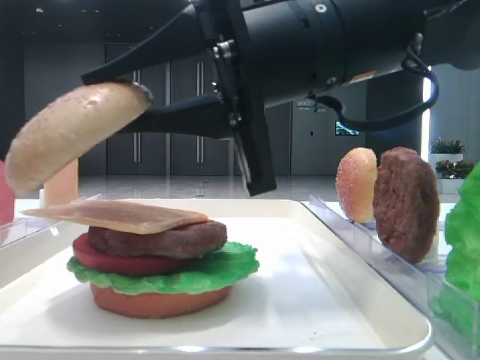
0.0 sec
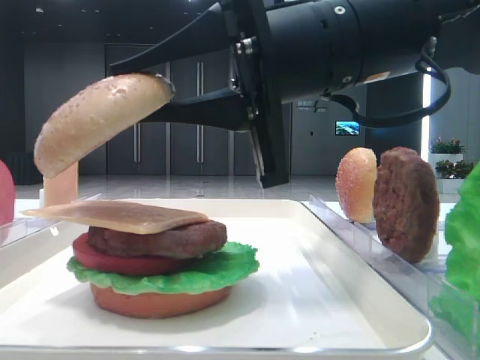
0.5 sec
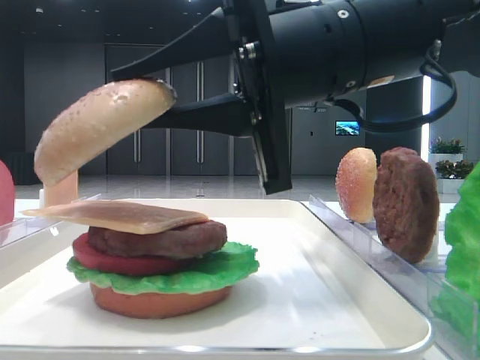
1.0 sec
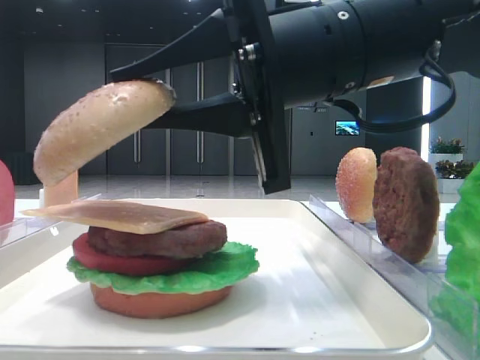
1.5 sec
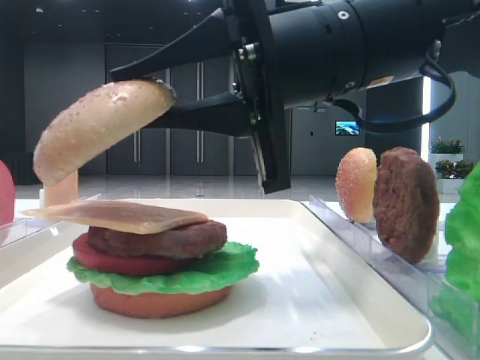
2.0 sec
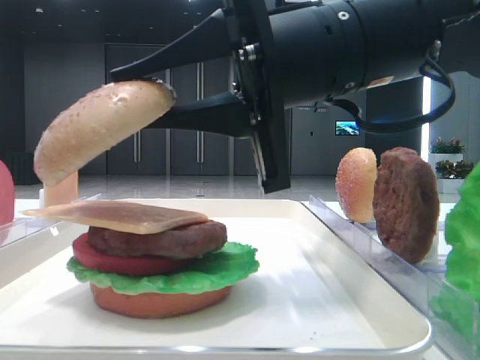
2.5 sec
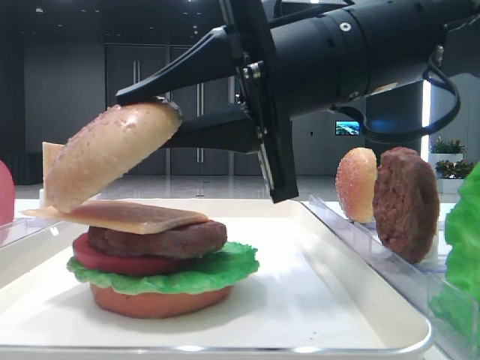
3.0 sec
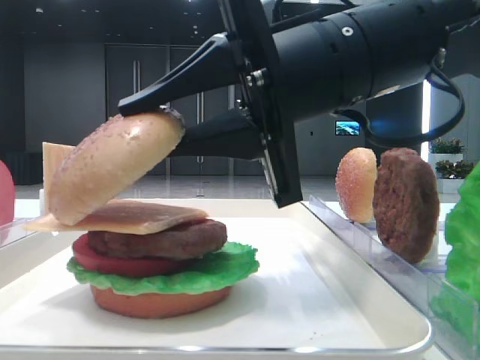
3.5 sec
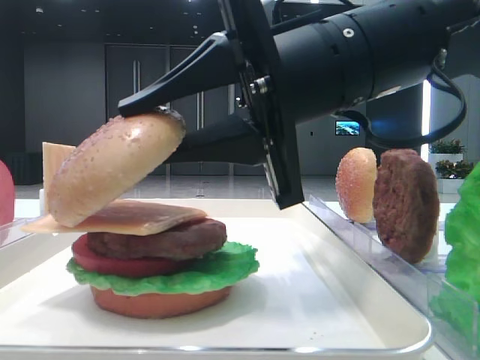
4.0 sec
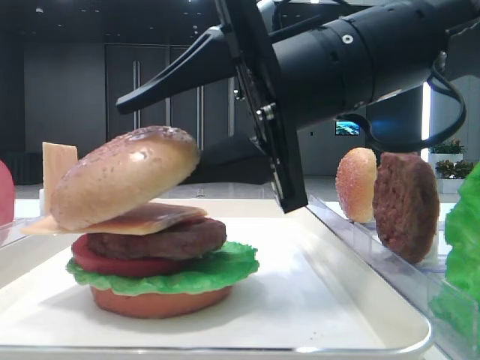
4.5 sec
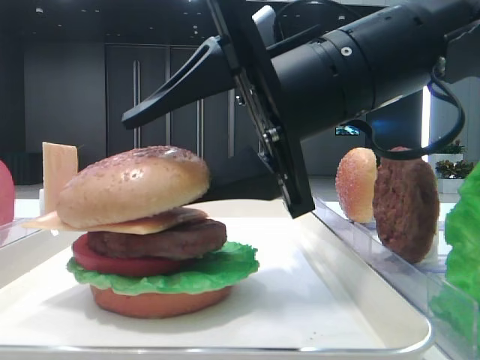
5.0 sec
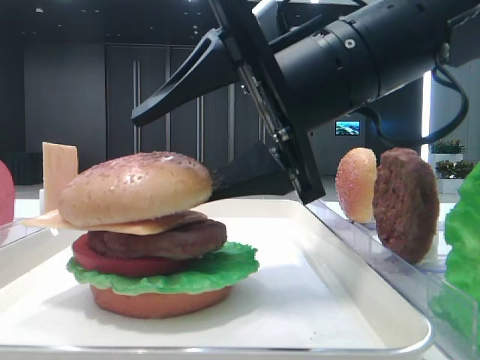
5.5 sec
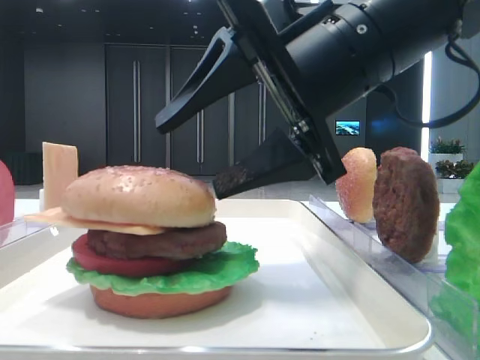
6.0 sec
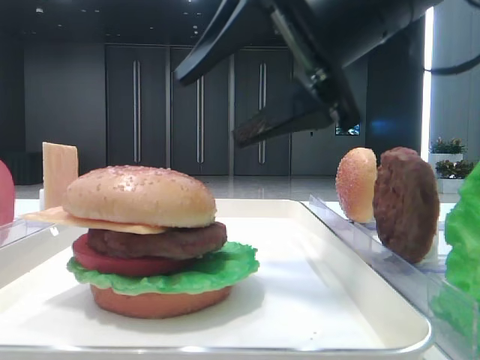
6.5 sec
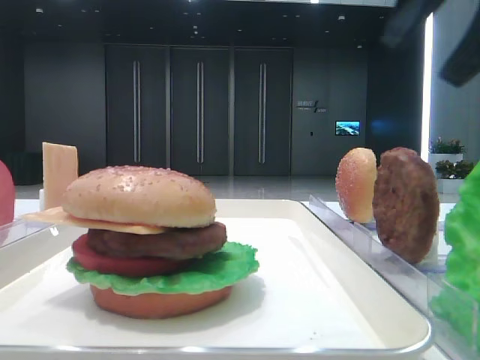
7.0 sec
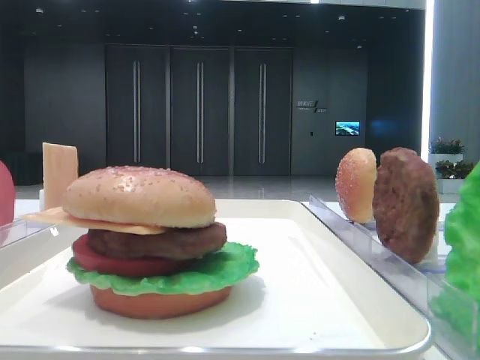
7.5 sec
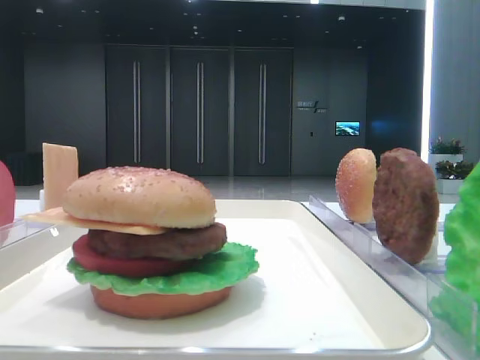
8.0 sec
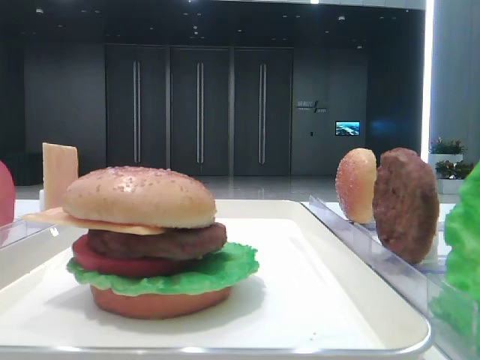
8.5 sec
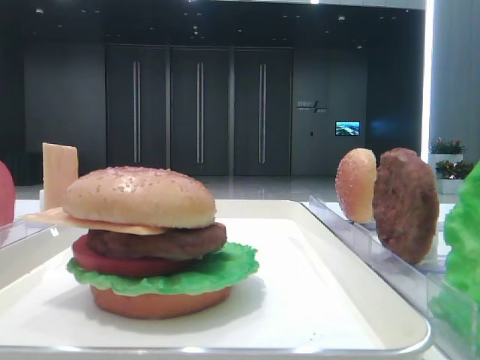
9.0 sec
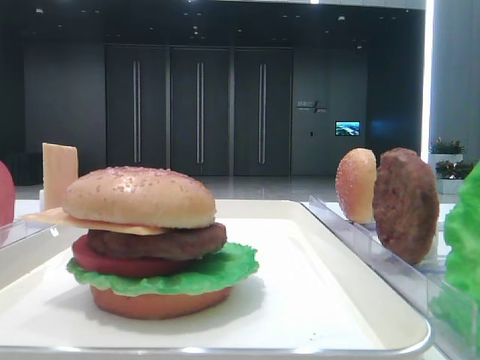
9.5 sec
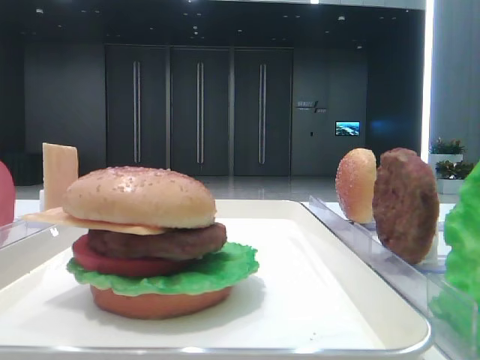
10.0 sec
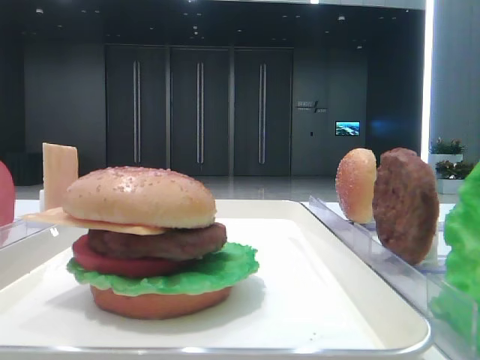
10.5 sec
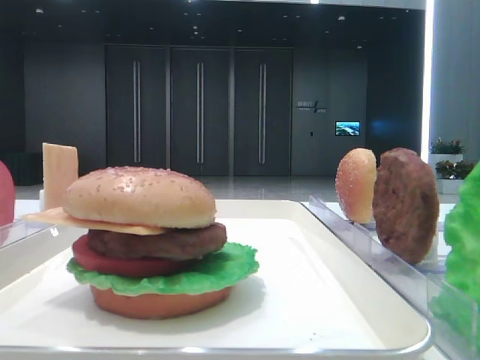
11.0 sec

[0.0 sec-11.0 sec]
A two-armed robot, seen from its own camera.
Step, 0.0 sec to 5.5 sec: Place the top bread slice on the cheese with the right hand.
0.0 sec to 3.5 sec: The grippers make only small movements.
3.5 sec to 5.5 sec: The right gripper opens.
5.5 sec to 7.5 sec: The right gripper heads to the right, upward and backward, covering roughly 30 cm.

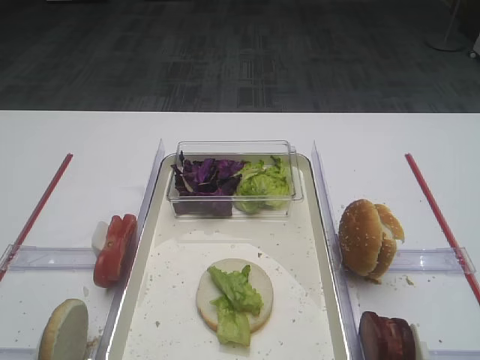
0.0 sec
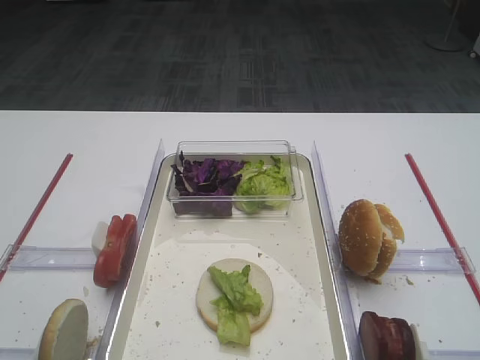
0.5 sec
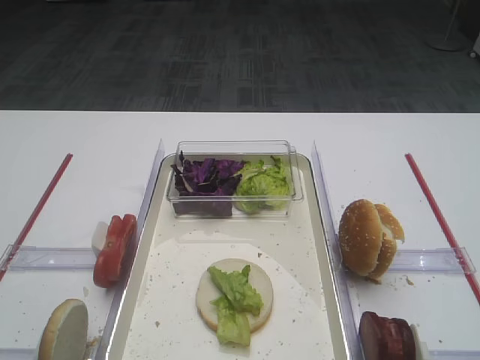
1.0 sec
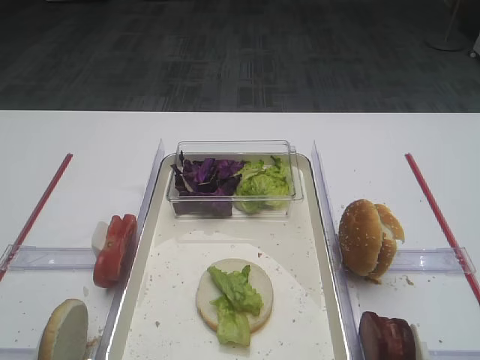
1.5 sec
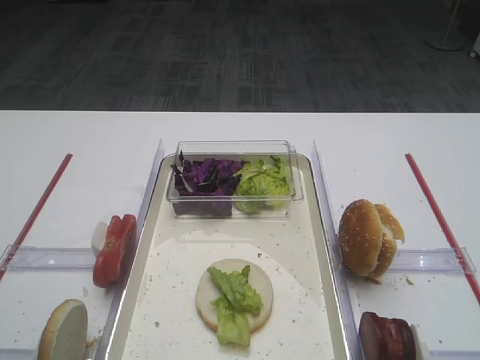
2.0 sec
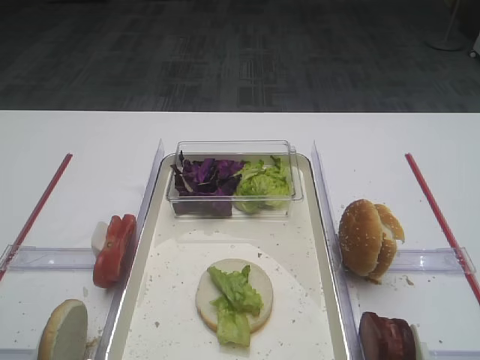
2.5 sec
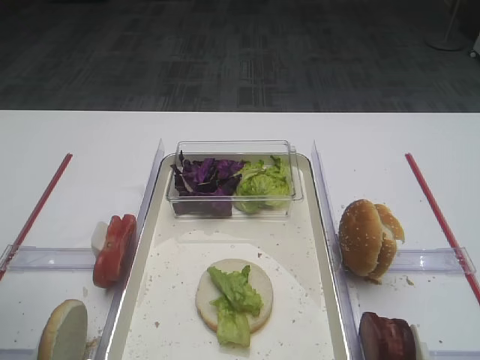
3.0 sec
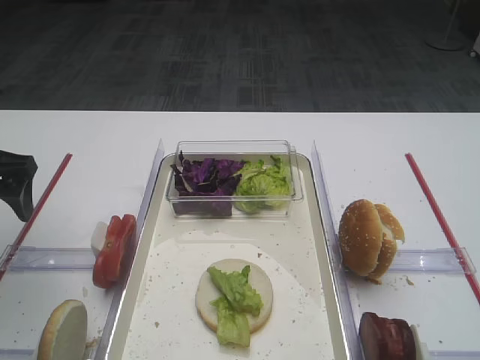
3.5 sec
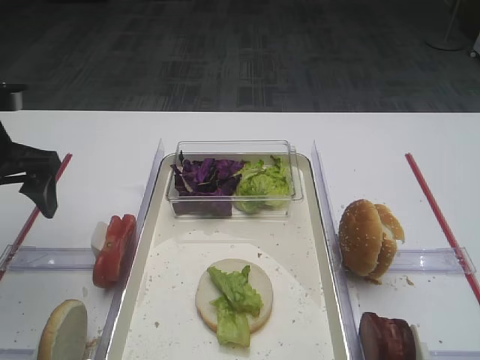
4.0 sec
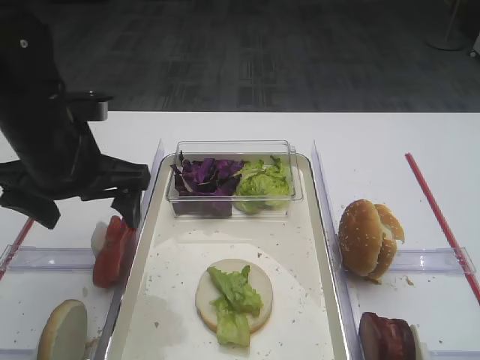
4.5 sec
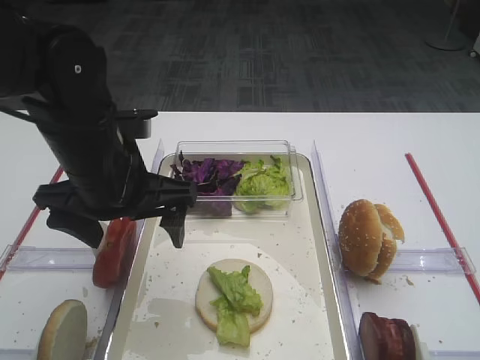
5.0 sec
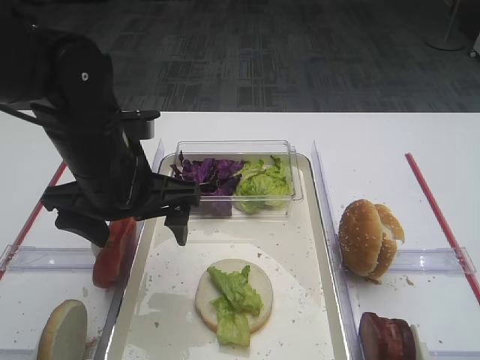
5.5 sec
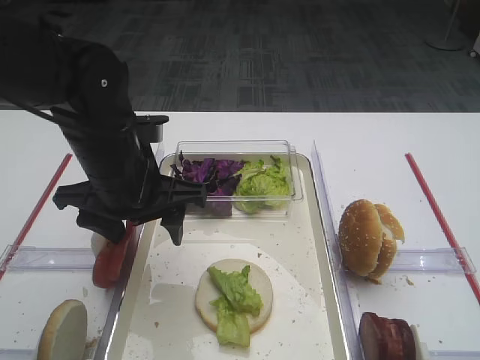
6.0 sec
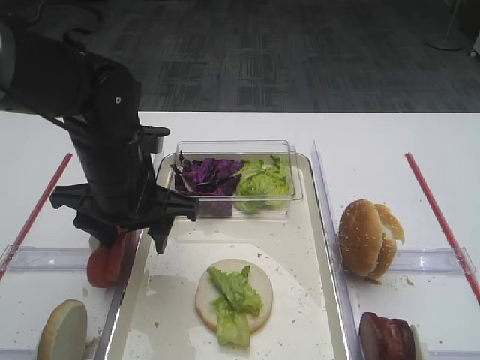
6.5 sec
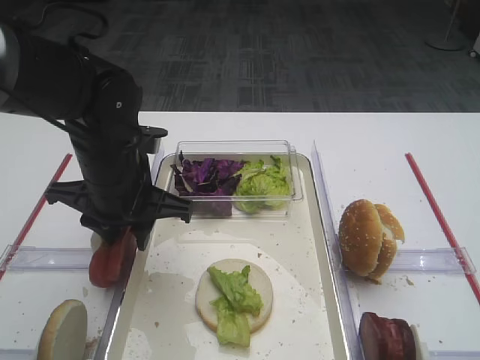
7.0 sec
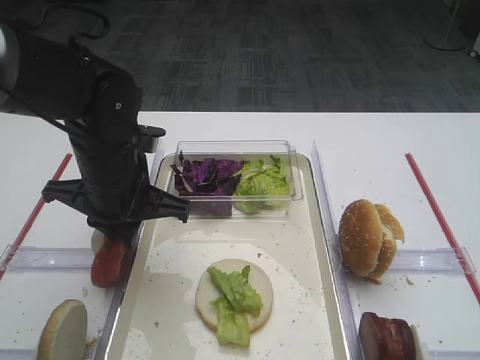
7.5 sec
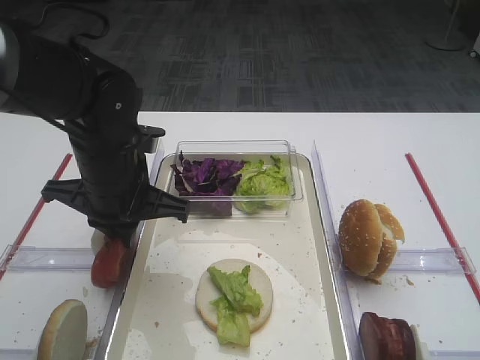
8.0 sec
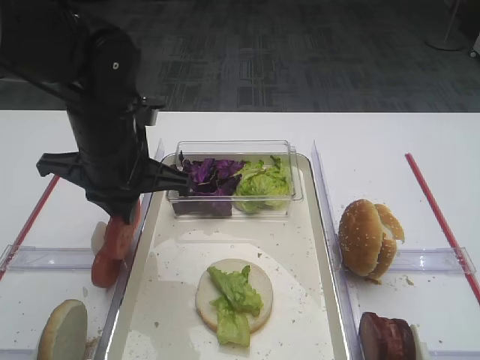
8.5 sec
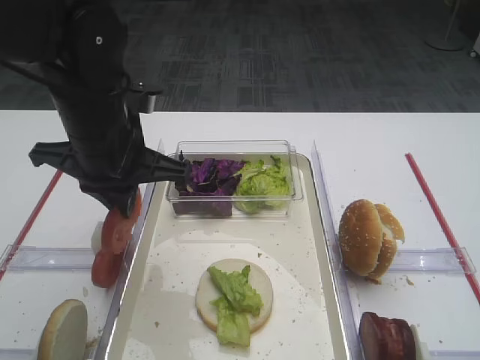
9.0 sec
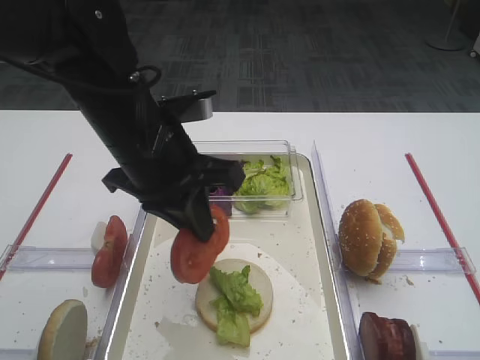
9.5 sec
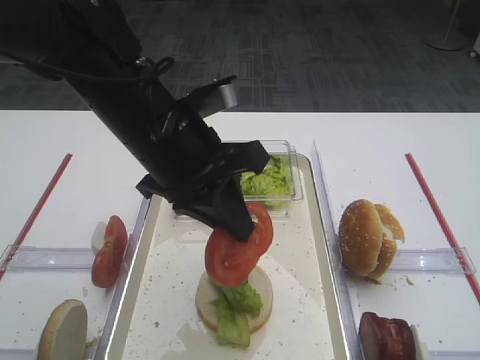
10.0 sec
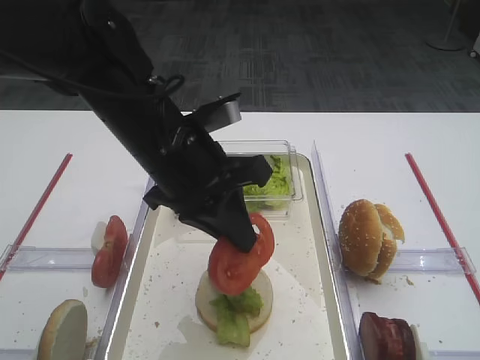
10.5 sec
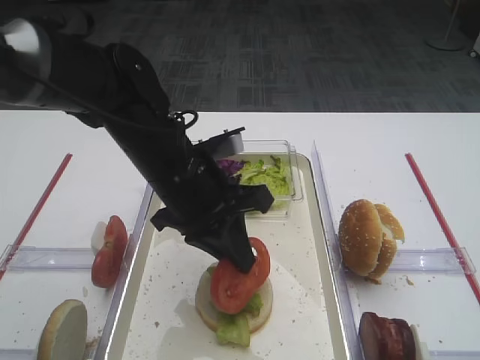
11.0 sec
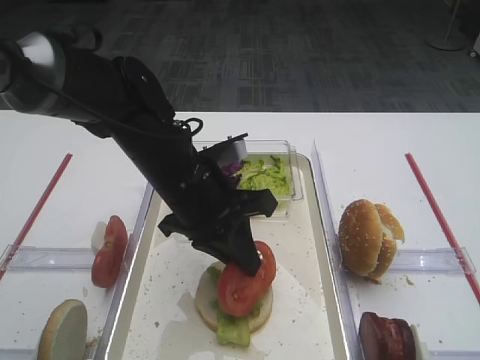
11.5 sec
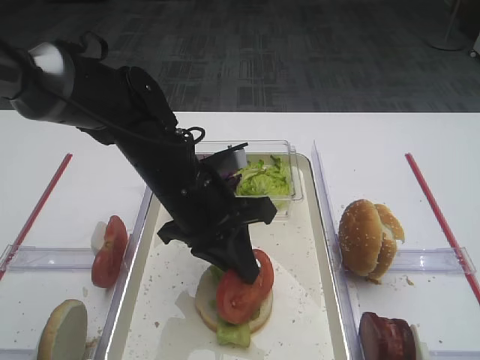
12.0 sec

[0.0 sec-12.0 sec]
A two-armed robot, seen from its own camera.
Step, 0.0 sec to 8.5 sec: Pick up the tomato slice with the left gripper.
2.0 sec to 4.0 sec: The left gripper heads forward, covering about 20 cm.
4.0 sec to 6.0 sec: The right gripper closes, while the left gripper heads to the right, covering approximately 15 cm.
6.0 sec to 8.0 sec: The left gripper closes.
8.0 sec to 10.0 sec: The left gripper heads upward and to the right, covering approximately 10 cm.
10.0 sec to 12.0 sec: The left gripper shifts some 10 cm downward.

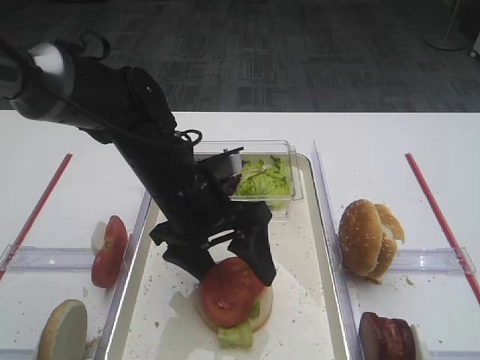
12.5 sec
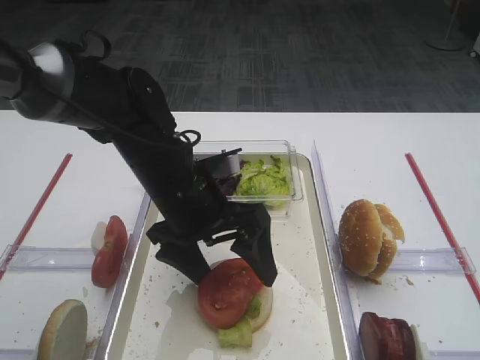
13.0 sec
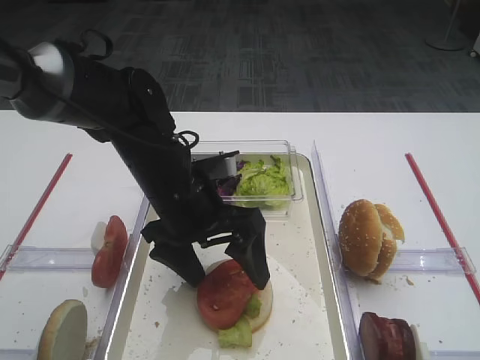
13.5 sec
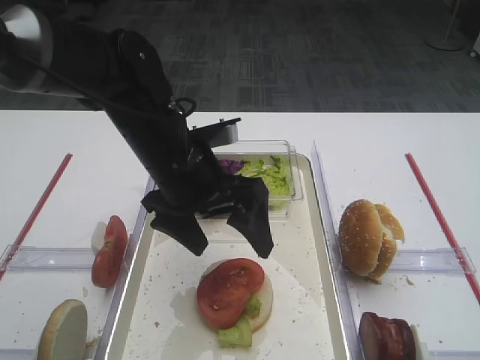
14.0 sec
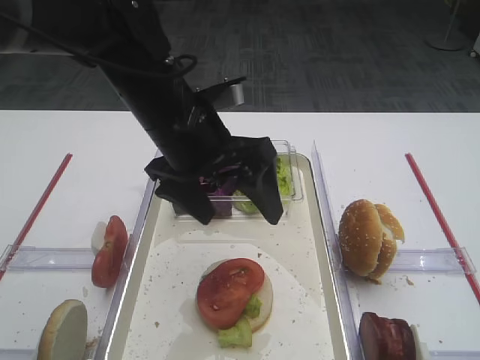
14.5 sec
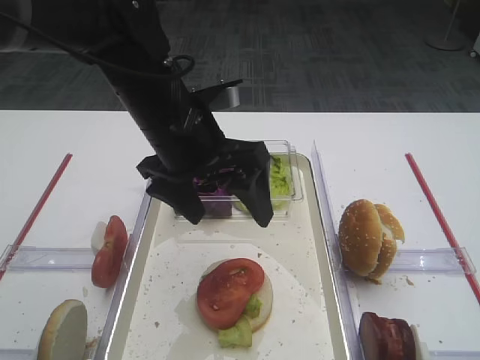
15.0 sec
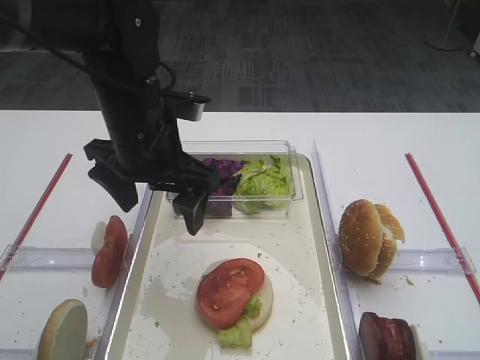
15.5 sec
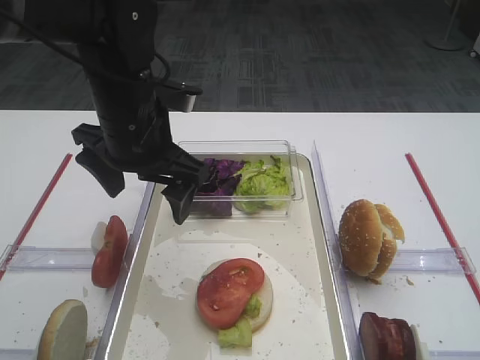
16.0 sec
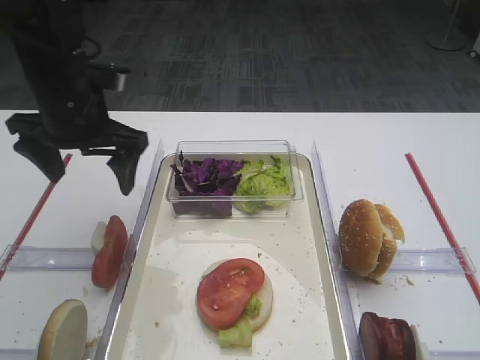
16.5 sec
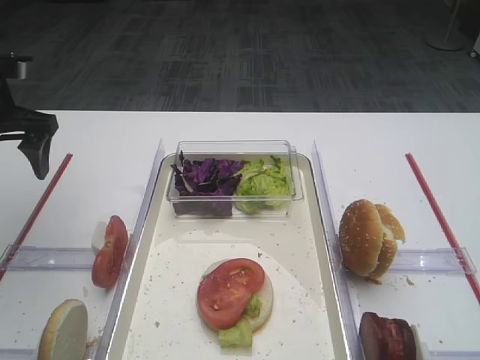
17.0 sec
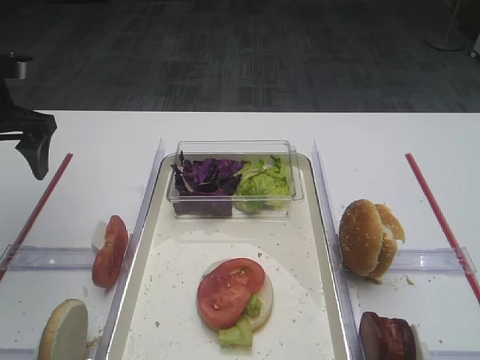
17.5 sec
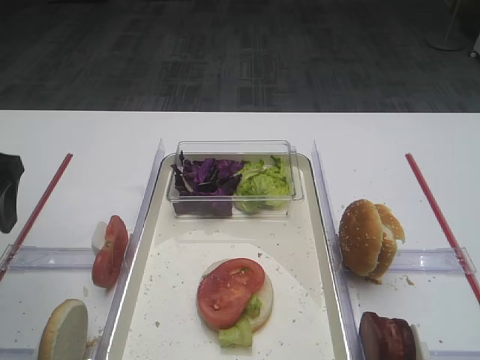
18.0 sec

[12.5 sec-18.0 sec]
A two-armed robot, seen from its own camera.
12.5 sec to 14.5 sec: The left gripper goes approximately 5 cm upward.
16.0 sec to 18.0 sec: The left gripper goes roughly 20 cm to the left.
